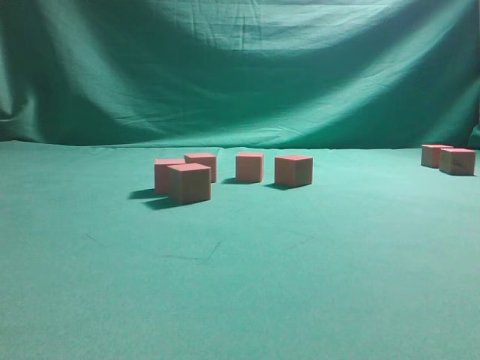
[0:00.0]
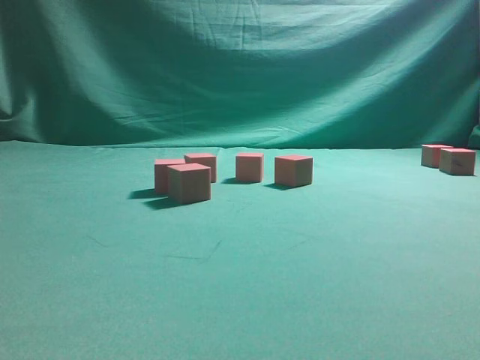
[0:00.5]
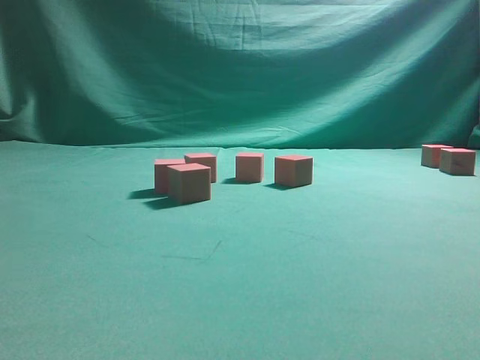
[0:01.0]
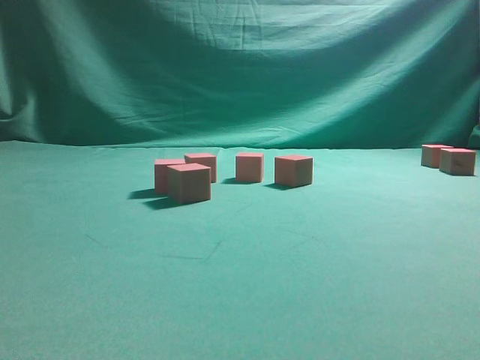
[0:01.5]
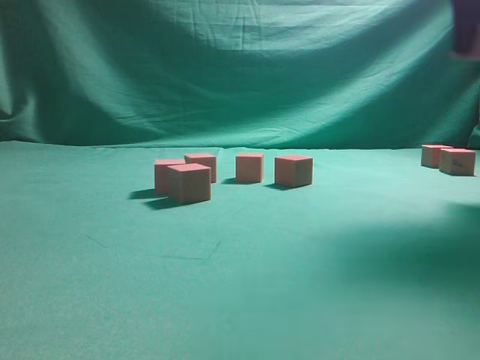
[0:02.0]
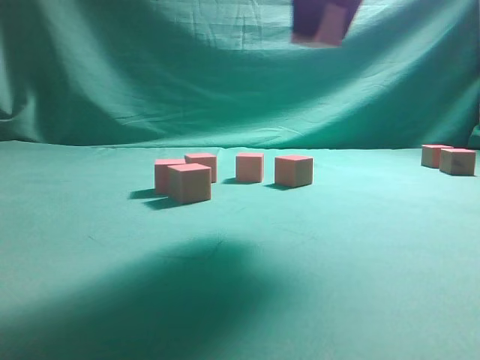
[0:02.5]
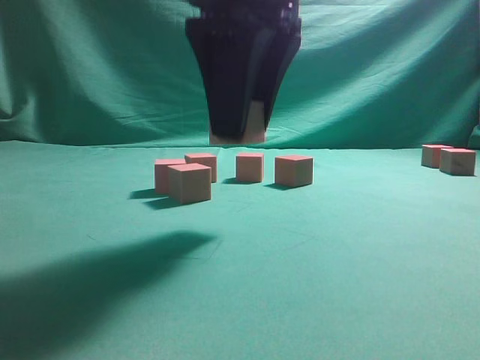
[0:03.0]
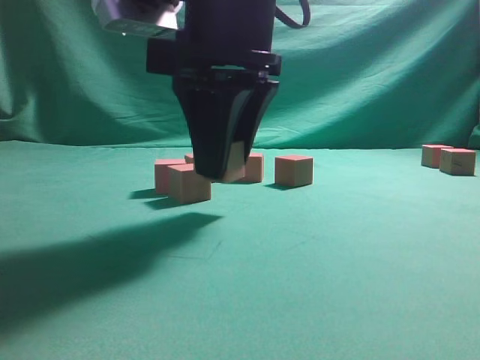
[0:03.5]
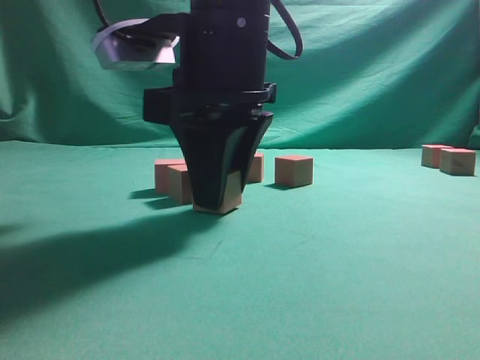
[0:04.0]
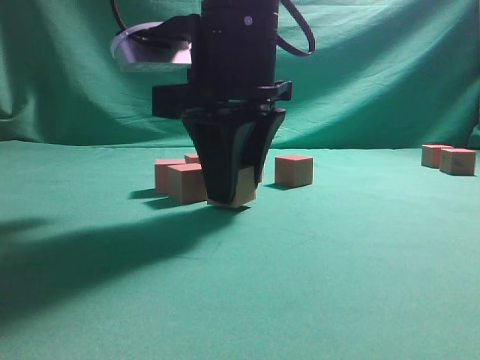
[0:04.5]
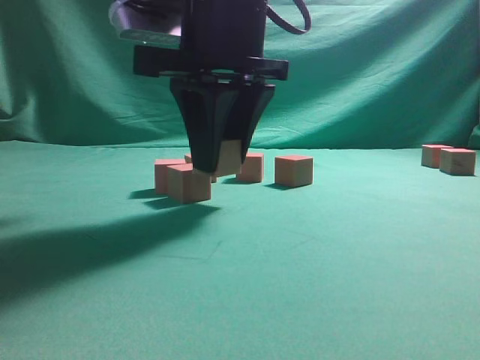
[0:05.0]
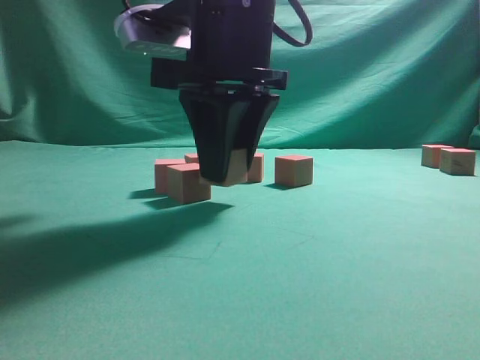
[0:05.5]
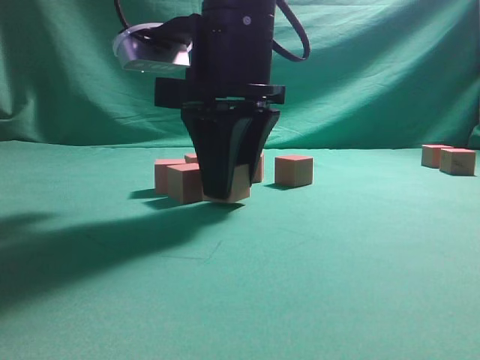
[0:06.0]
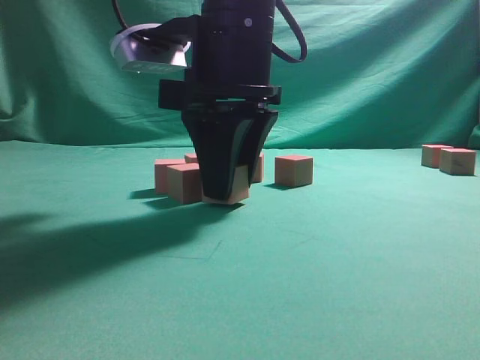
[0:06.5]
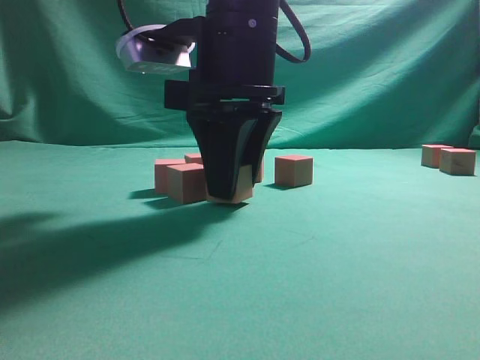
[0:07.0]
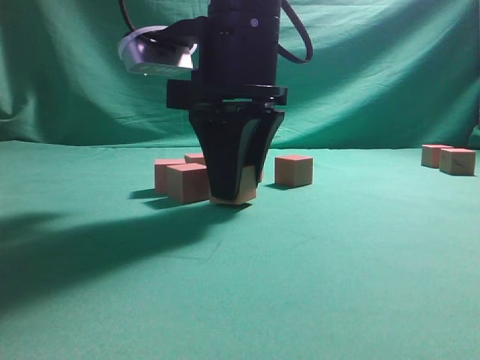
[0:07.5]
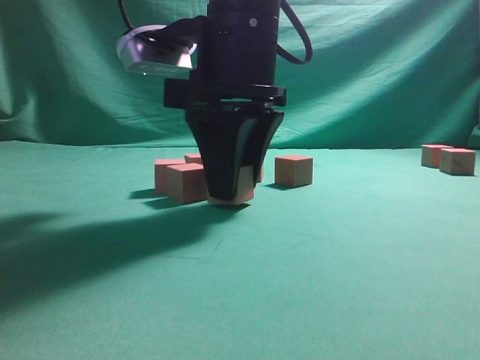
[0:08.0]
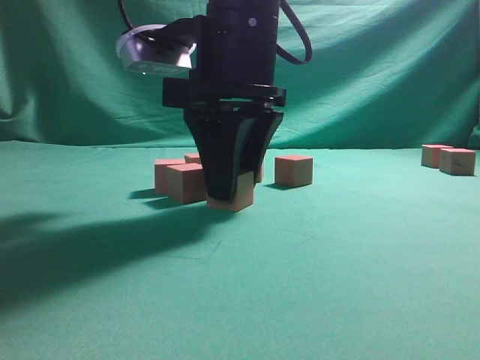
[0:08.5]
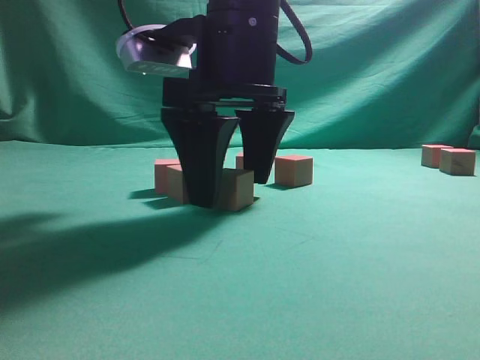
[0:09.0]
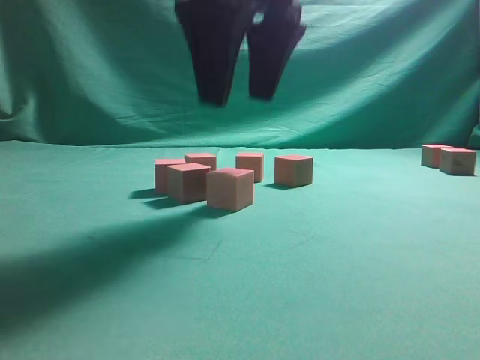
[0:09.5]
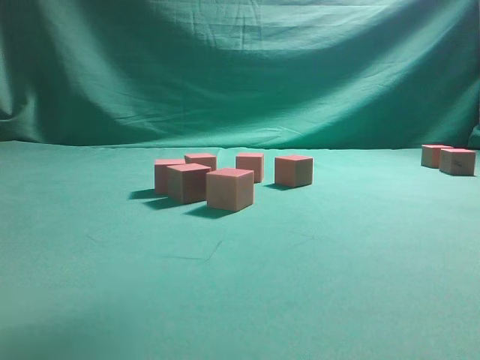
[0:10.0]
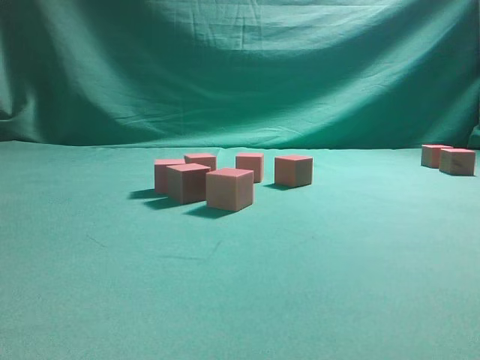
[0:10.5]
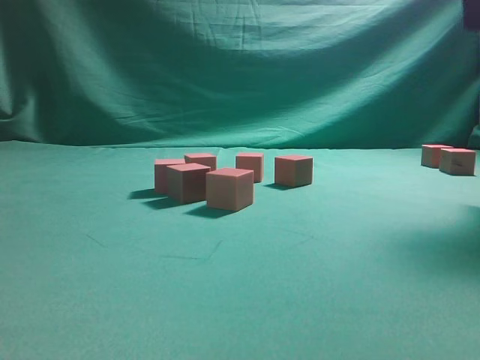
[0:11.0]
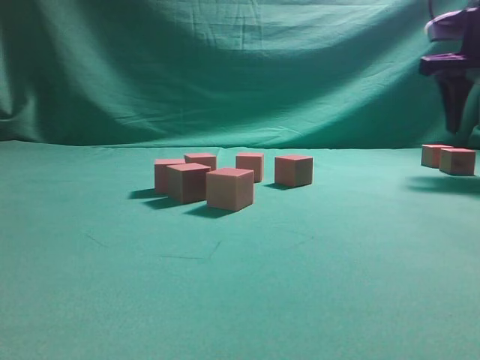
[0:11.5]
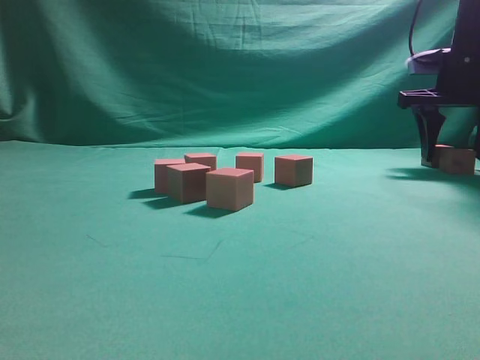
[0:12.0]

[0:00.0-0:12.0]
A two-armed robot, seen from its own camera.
Task of the whole recording: pick up the multiple cubes in two columns one by one and place them in another position on the table.
Step, 0:02.0 to 0:09.0: Place the block at the correct position to assemble the letter S.
0:00.0 to 0:02.0: The right gripper heads to the left and upward, covering some 10 cm, and closes its fingers.
0:02.0 to 0:04.0: The right gripper shifts roughly 30 cm to the left and downward.
0:04.0 to 0:06.0: There are only small adjustments of the grippers.
0:06.0 to 0:08.0: Neither gripper changes place.
0:08.0 to 0:10.0: The right gripper goes some 20 cm upward and to the right, and opens.
0:10.0 to 0:12.0: The right gripper travels forward, to the right and downward by approximately 35 cm.

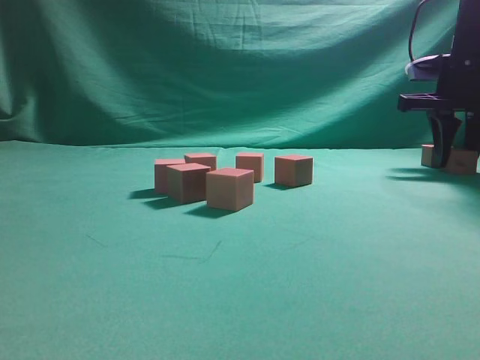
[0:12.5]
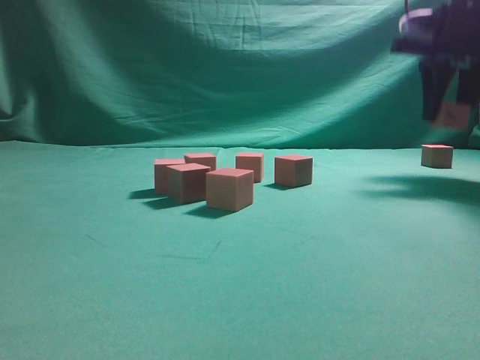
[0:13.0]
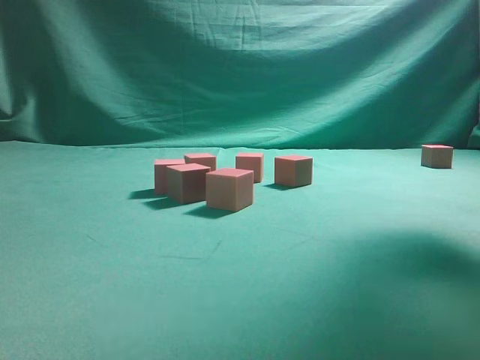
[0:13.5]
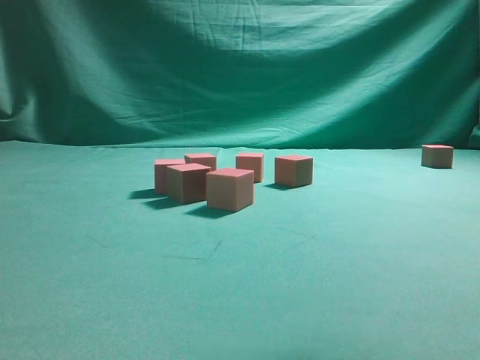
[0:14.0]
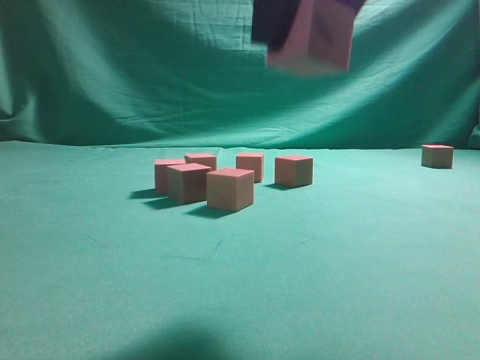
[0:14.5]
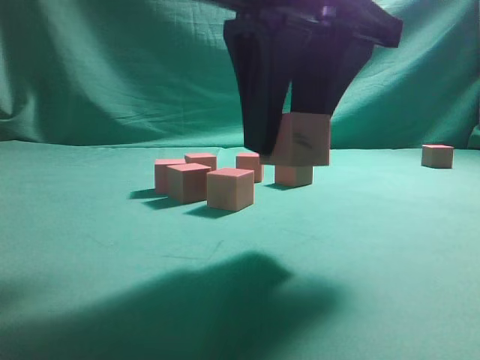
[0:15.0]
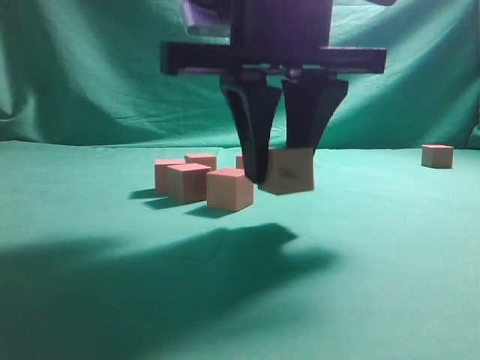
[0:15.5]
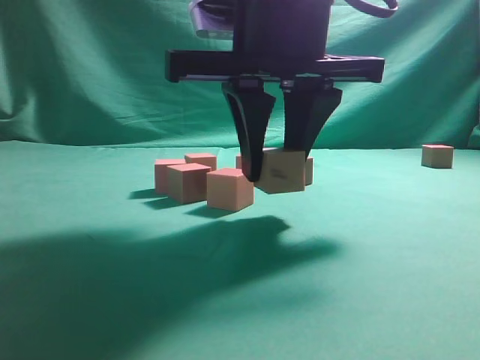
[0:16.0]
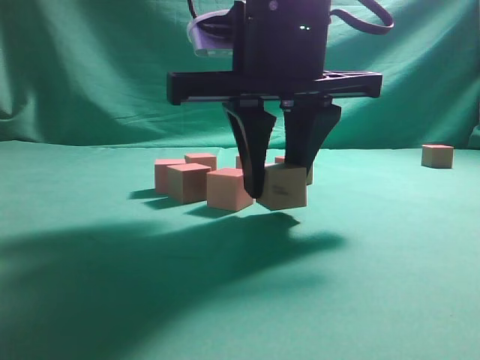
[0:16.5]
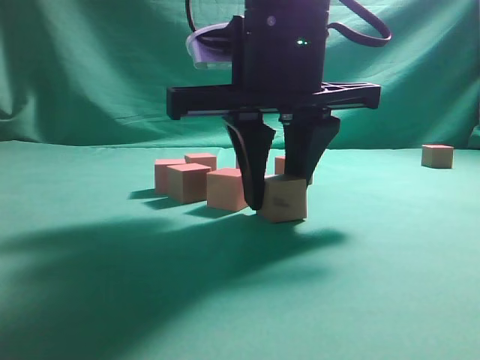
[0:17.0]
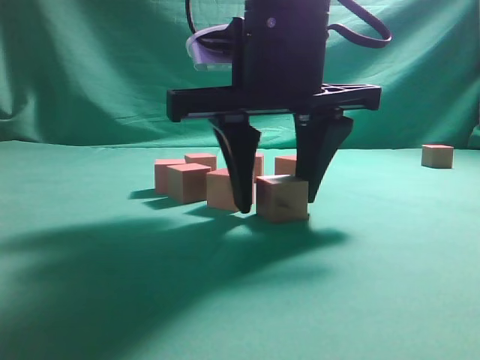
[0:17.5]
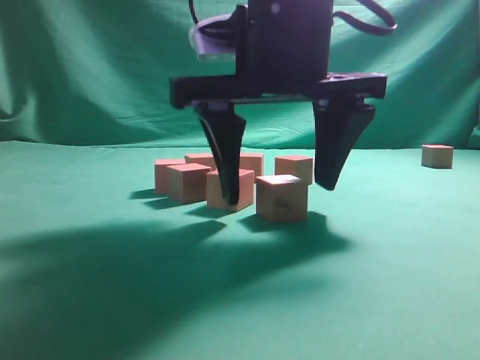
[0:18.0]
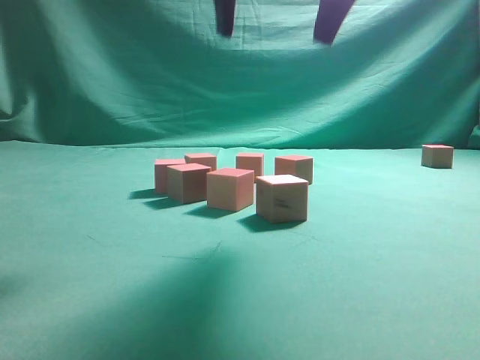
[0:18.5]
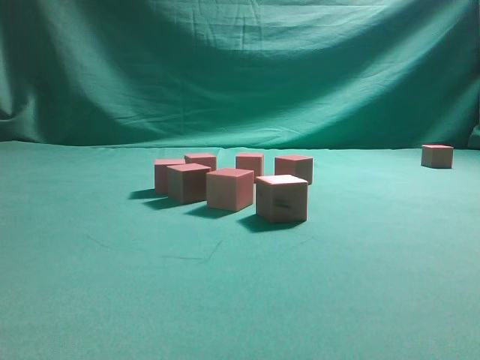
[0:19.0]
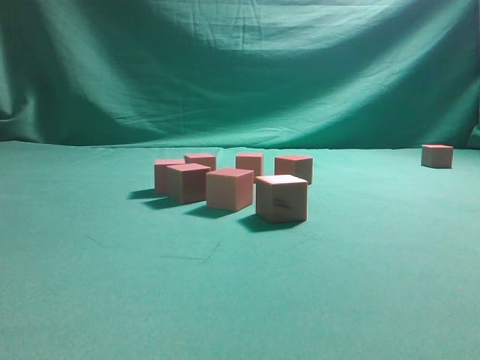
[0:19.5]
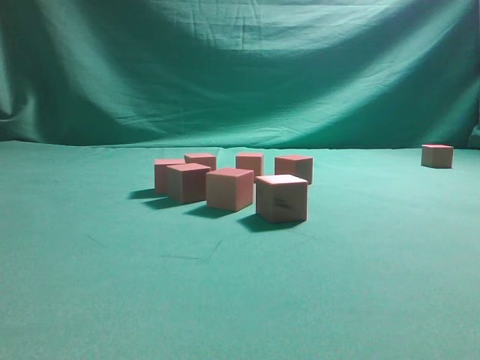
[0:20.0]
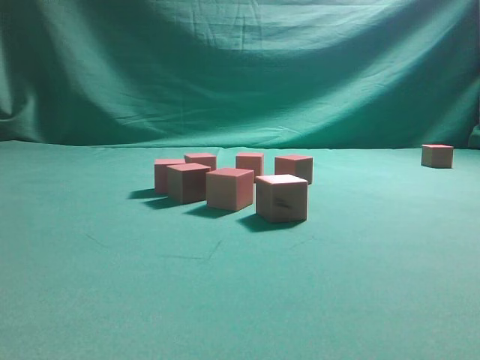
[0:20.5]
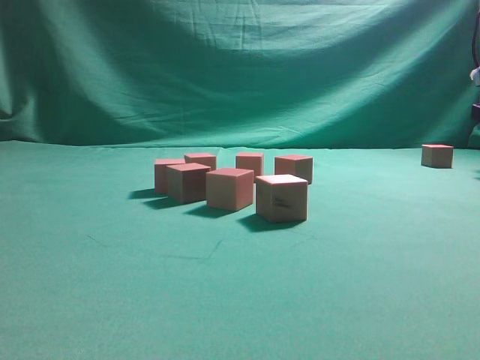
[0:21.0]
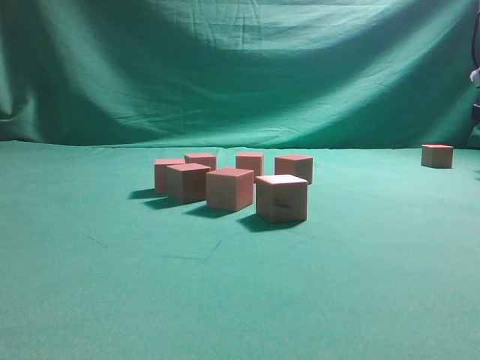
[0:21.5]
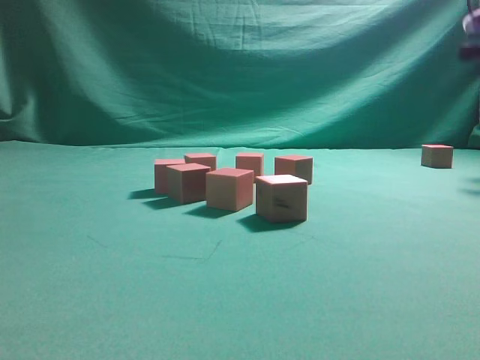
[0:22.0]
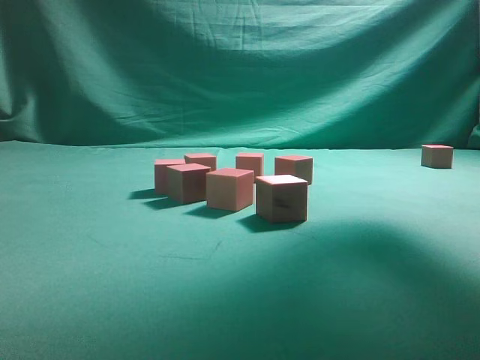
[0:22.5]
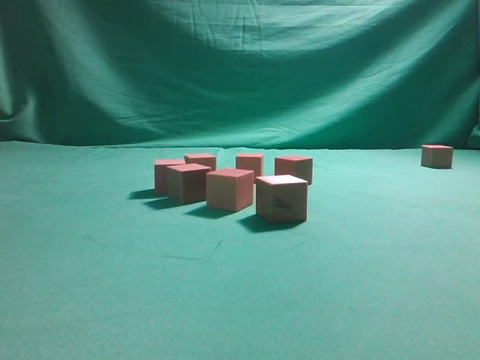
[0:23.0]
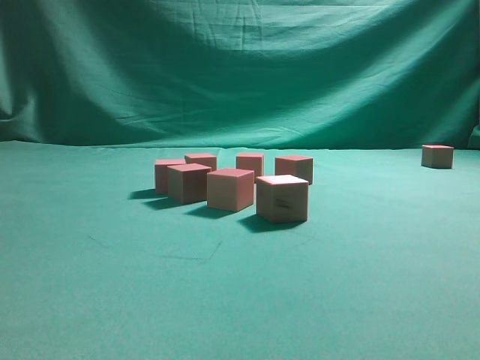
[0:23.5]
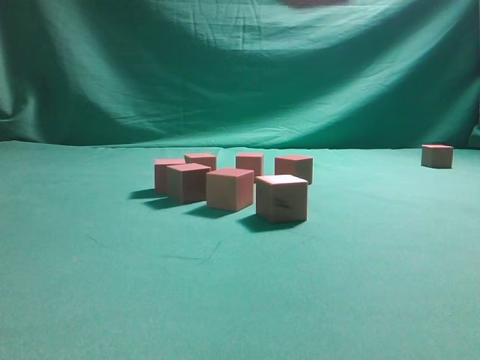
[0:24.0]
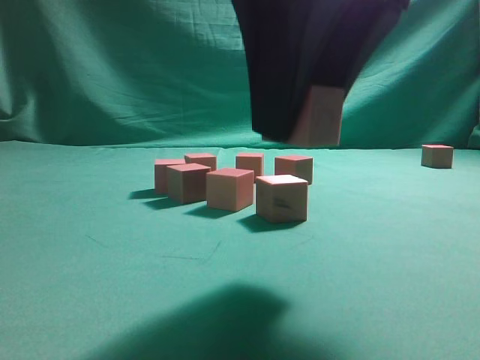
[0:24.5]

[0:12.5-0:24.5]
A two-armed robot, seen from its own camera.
Task of the whole recording: pick up the multiple cubes in two columns one by one and place them in another position on the table.
Step, 0:13.0 to 0:18.0: Place the block at the correct position to assemble the letter S.
Step, 0:18.5 to 0:21.5: Pick up the block on the table.
0:12.5 to 0:14.5: The right gripper travels backward and to the left by about 35 cm.
0:14.5 to 0:16.5: The right gripper heads downward and forward, covering roughly 10 cm.
0:16.5 to 0:18.5: The right gripper heads upward, covering some 10 cm, and opens up.
0:18.5 to 0:20.5: The right gripper goes roughly 35 cm to the right and forward.
0:20.5 to 0:22.5: The right gripper travels upward, to the left and backward by about 25 cm, and closes up.
0:22.5 to 0:24.5: The right gripper is displaced backward, to the left and downward by some 25 cm.

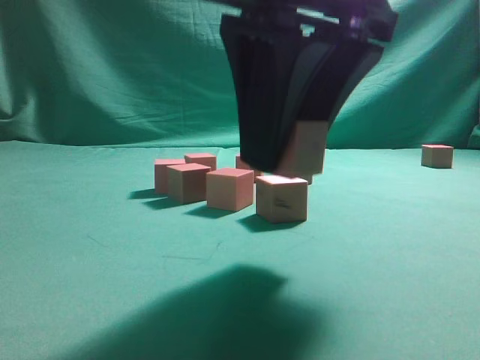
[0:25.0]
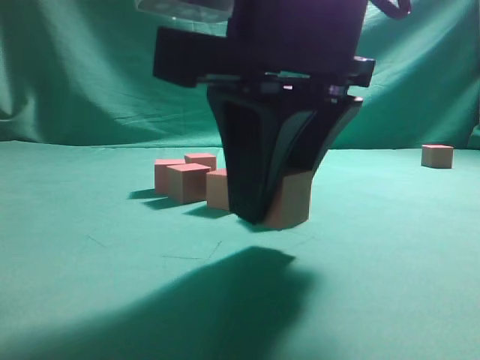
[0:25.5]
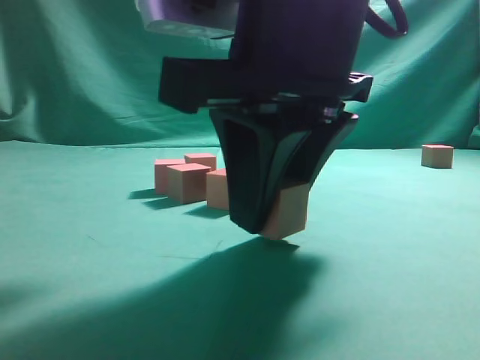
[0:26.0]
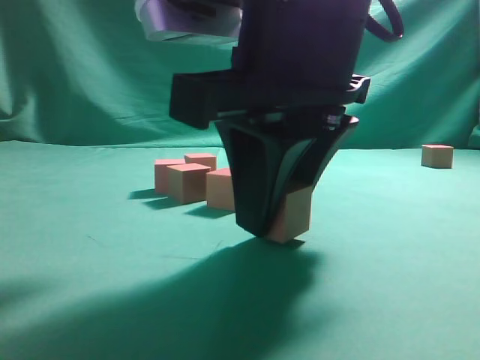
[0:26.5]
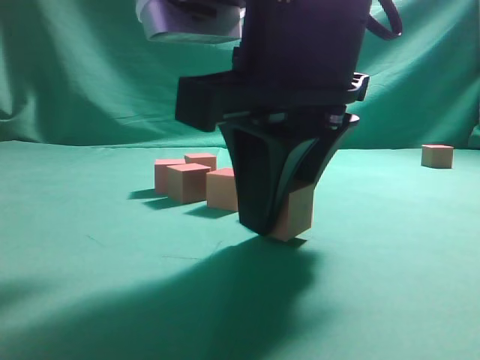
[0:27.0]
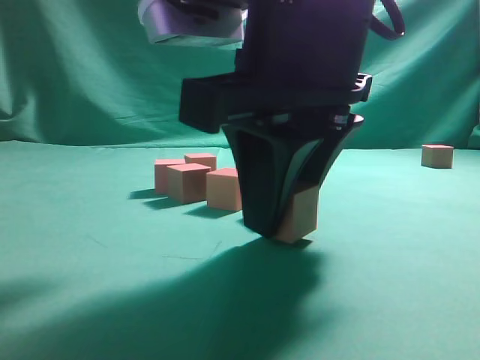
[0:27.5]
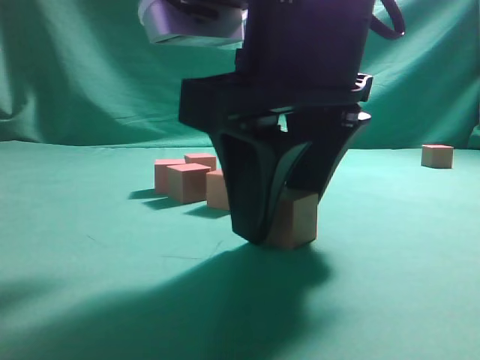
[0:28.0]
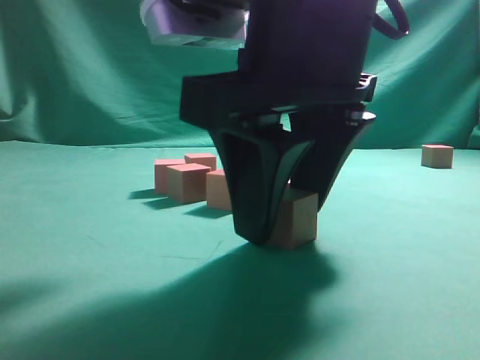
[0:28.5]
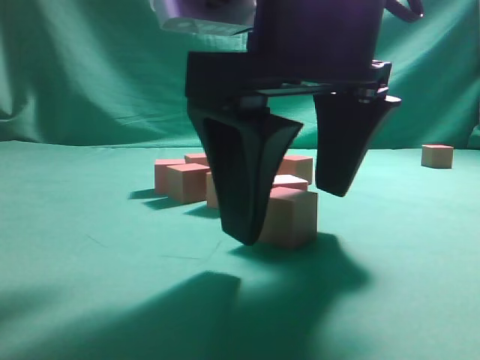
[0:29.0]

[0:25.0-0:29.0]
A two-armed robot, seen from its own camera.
Task of the whole recording: pick up the multiple cubes in two columns one by one and place them in another position on the table.
0:25.0 to 0:27.0: The grippers make only small movements.
0:27.0 to 0:29.0: The right gripper opens.
